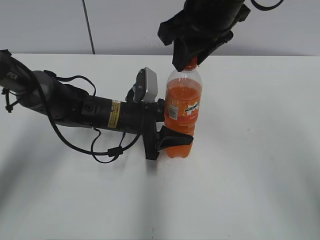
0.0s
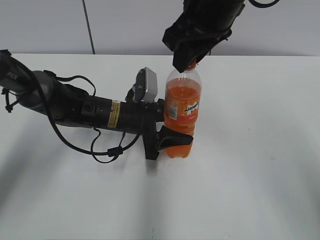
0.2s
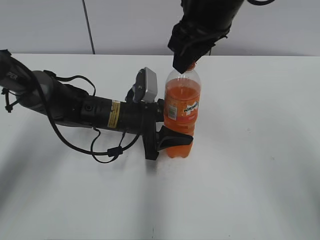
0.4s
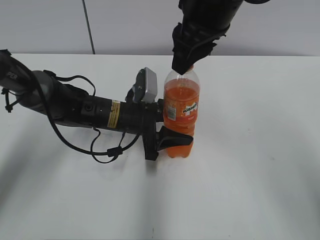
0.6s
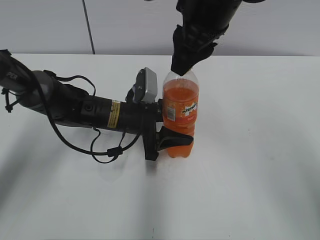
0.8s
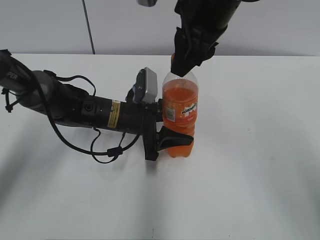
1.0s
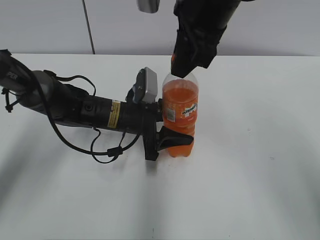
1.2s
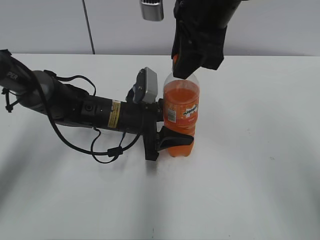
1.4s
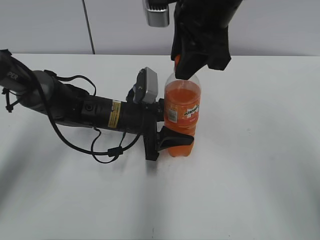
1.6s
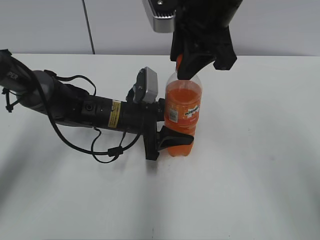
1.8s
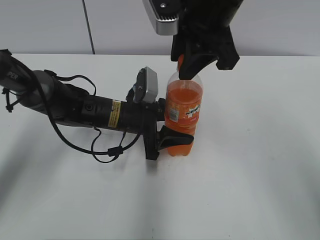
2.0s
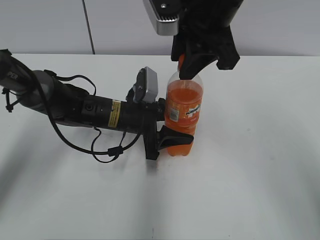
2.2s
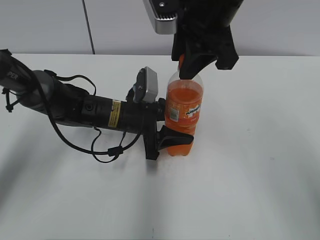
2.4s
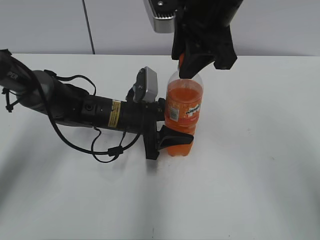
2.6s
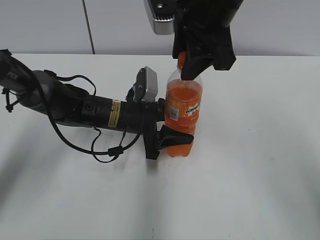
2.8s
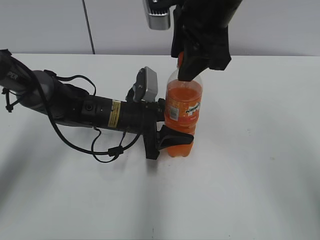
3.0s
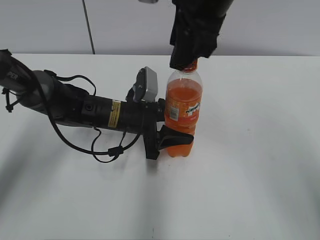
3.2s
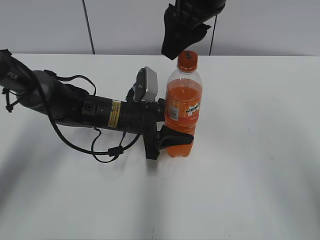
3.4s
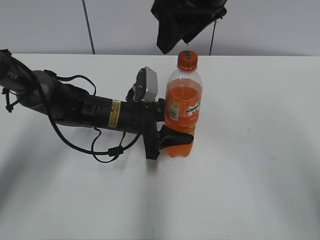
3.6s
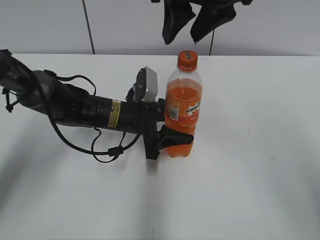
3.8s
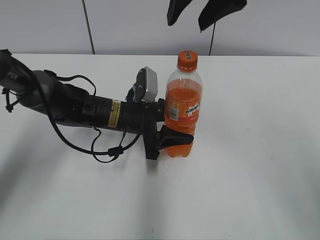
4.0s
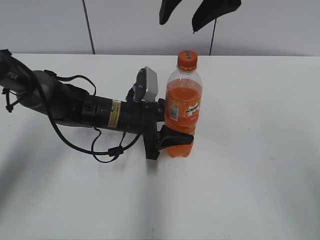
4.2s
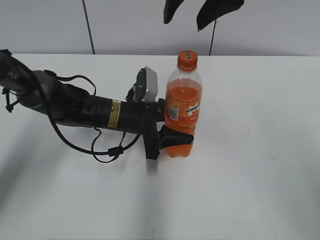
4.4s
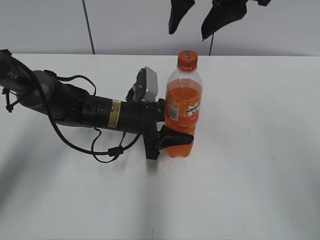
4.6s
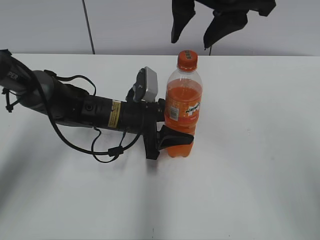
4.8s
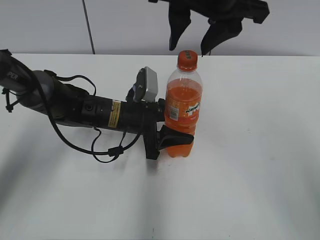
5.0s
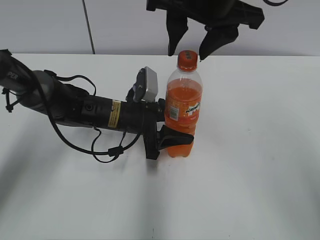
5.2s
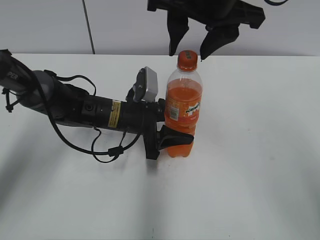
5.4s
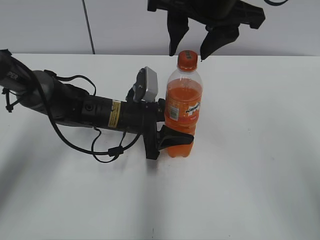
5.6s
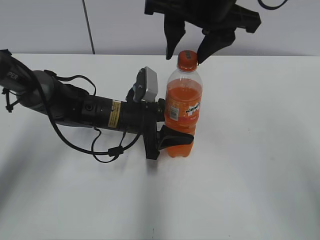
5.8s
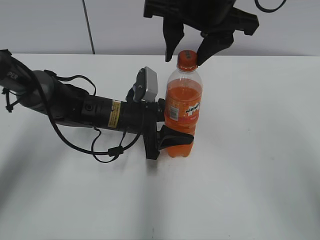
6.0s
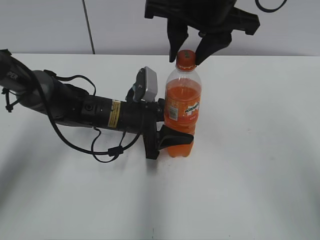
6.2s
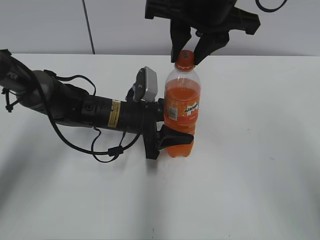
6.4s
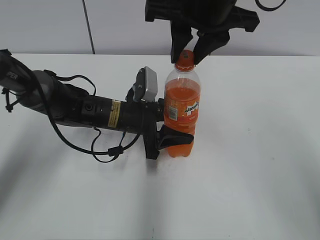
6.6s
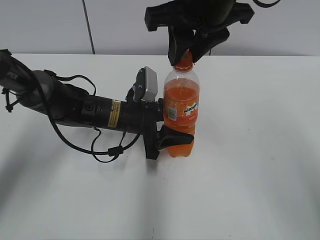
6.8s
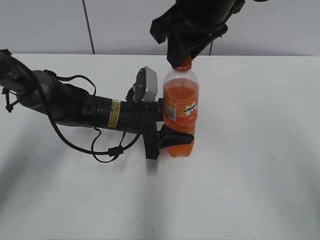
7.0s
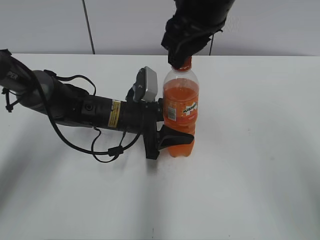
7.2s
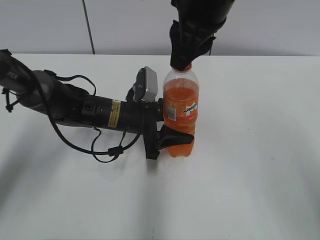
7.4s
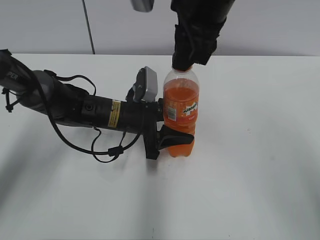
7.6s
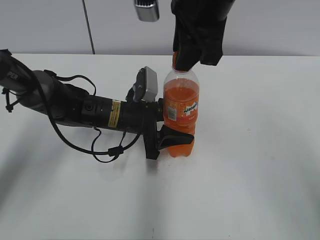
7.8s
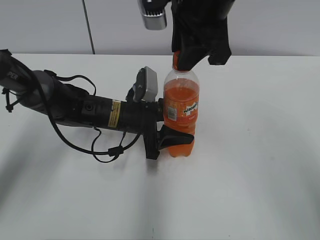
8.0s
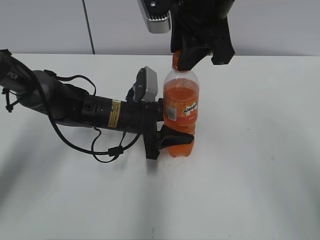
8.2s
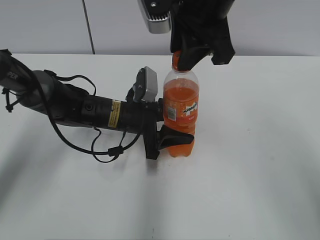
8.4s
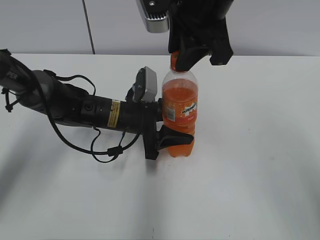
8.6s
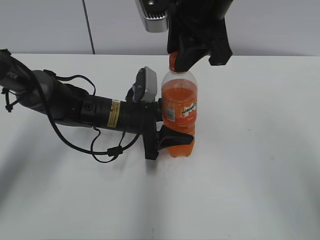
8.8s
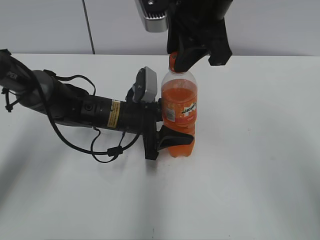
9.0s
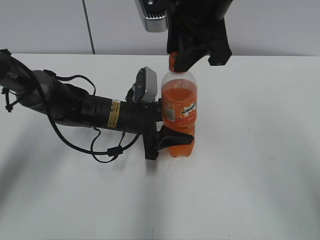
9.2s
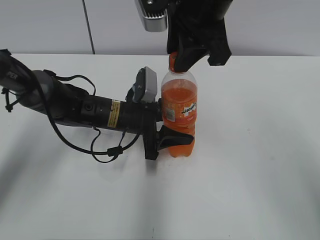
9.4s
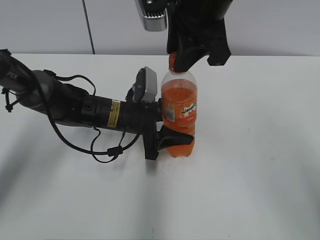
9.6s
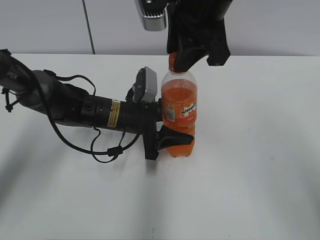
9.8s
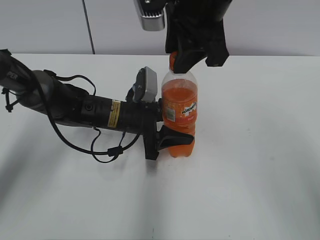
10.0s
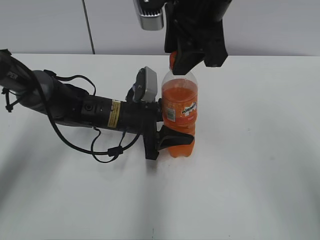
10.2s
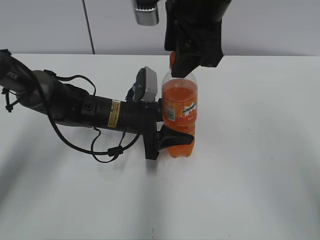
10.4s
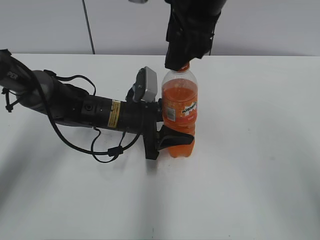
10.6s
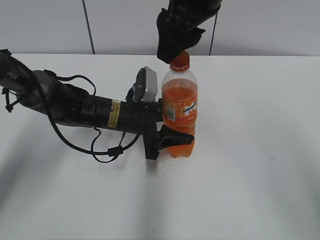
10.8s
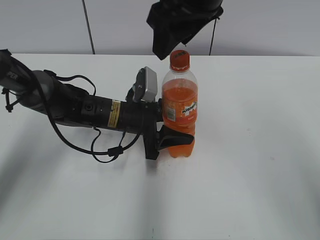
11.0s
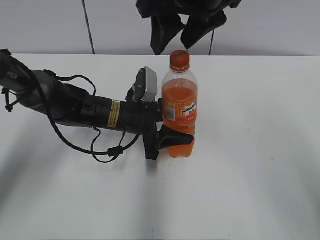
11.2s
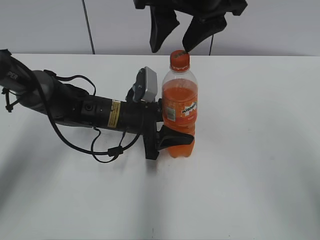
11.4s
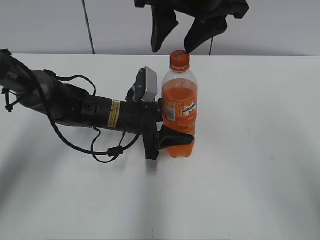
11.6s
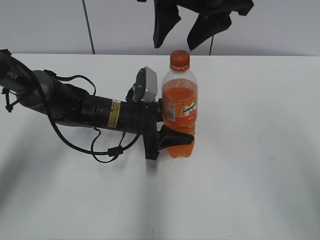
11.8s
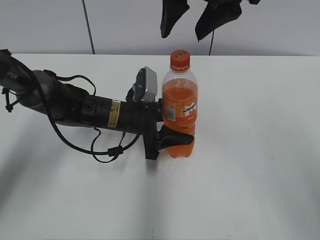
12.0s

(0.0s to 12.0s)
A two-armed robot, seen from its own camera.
1.6s - 3.0s: The right gripper opens.
3.0s - 4.4s: The right gripper heads upward, covering roughly 5 cm.
4.4s - 6.0s: The right gripper heads downward, covering about 5 cm.
6.0s - 7.6s: The right gripper closes its fingers.
9.0s - 10.4s: The right gripper opens its fingers.

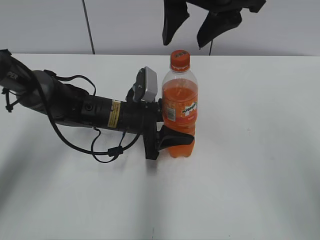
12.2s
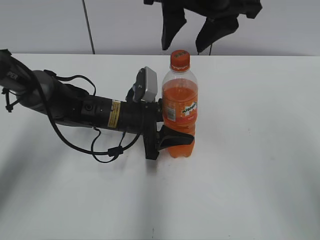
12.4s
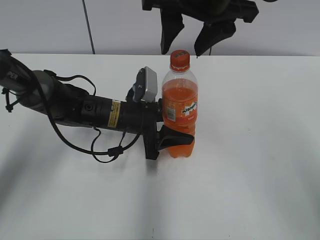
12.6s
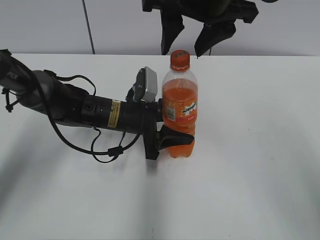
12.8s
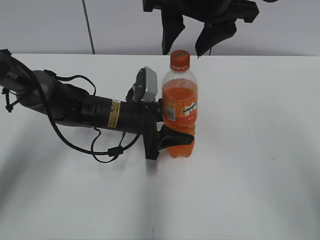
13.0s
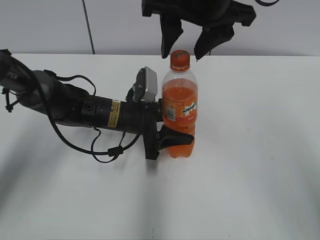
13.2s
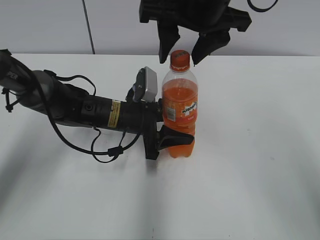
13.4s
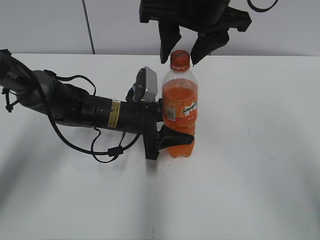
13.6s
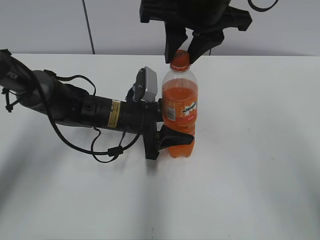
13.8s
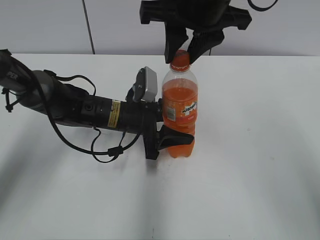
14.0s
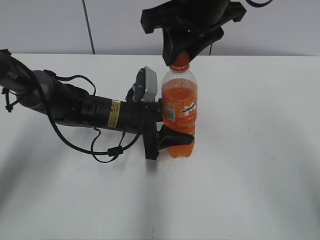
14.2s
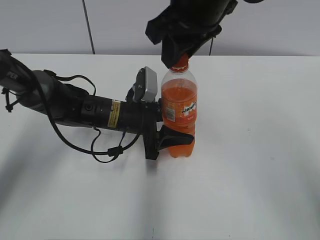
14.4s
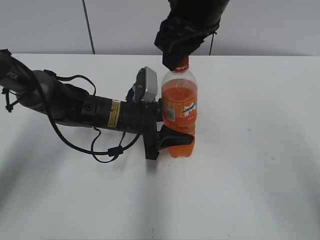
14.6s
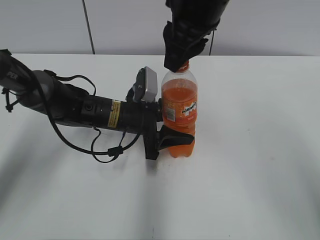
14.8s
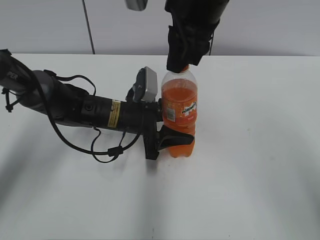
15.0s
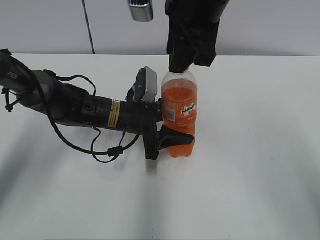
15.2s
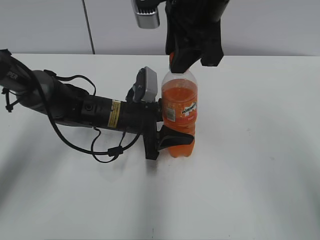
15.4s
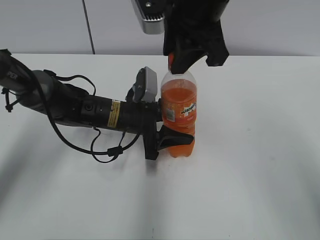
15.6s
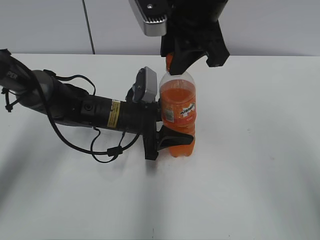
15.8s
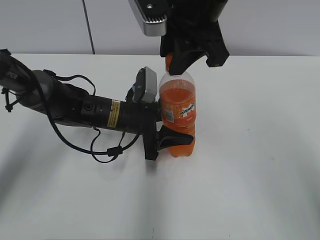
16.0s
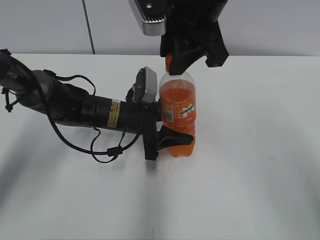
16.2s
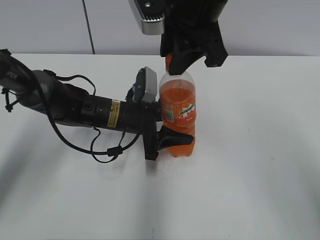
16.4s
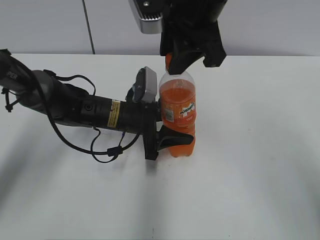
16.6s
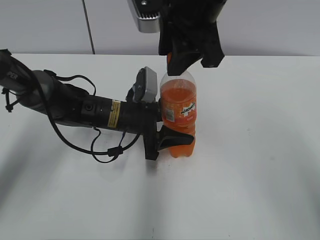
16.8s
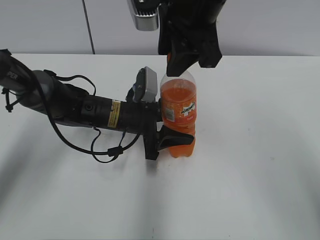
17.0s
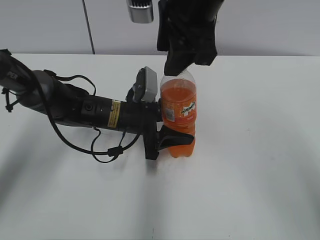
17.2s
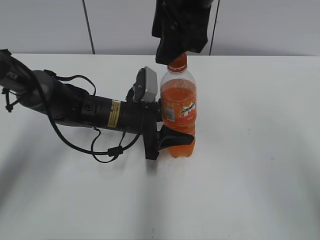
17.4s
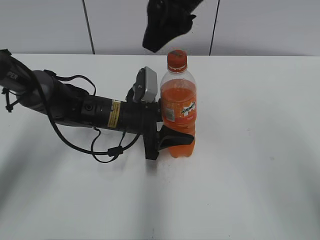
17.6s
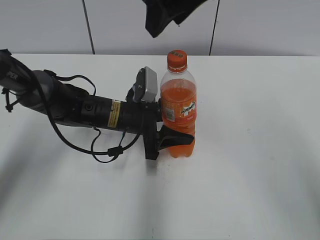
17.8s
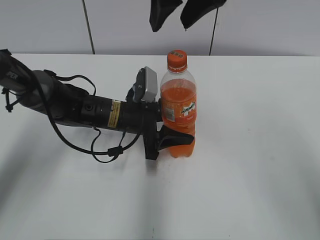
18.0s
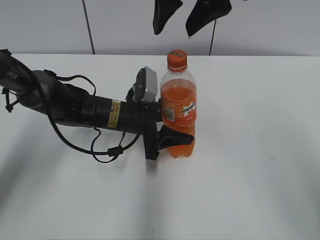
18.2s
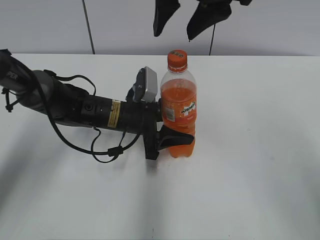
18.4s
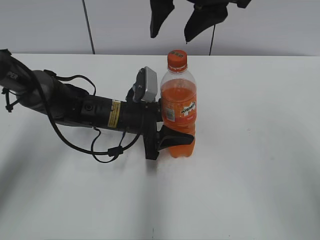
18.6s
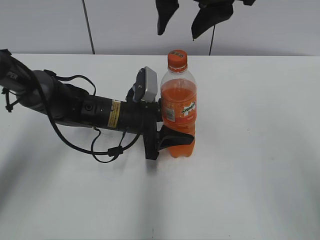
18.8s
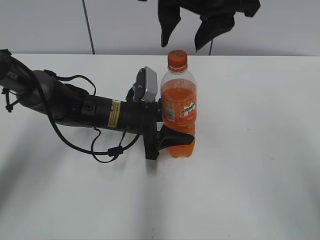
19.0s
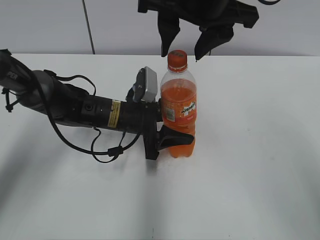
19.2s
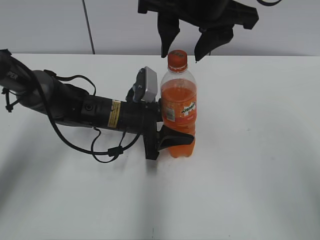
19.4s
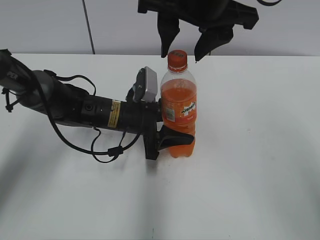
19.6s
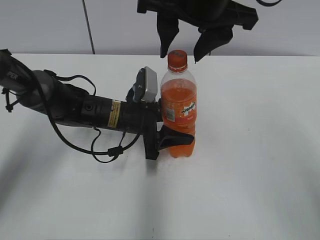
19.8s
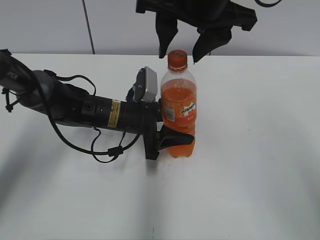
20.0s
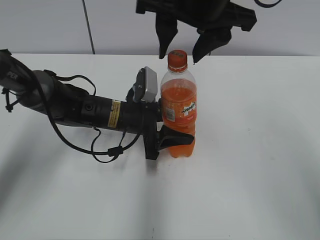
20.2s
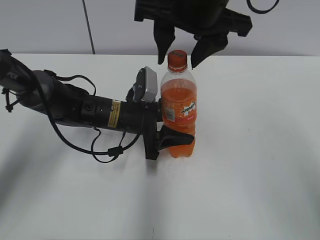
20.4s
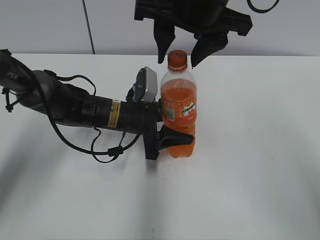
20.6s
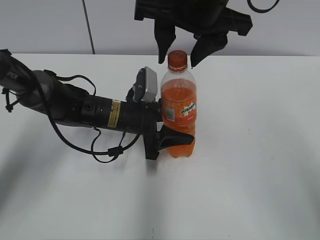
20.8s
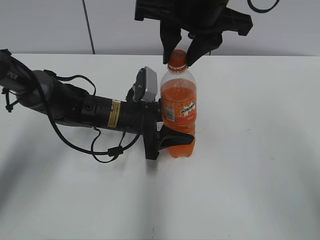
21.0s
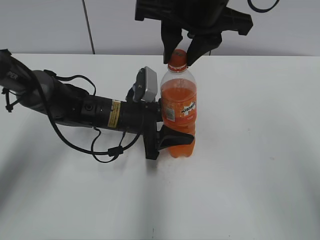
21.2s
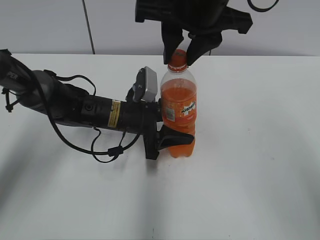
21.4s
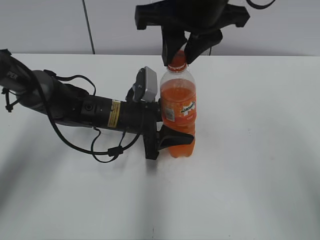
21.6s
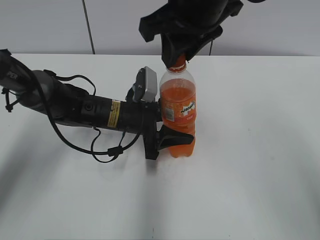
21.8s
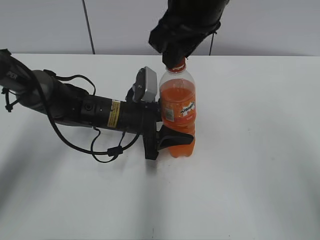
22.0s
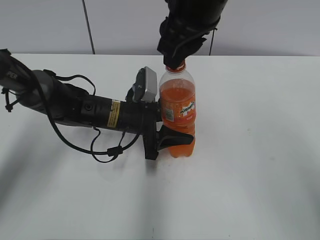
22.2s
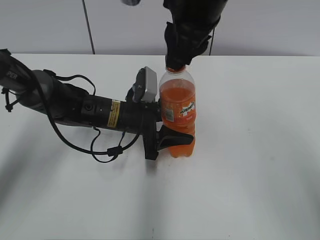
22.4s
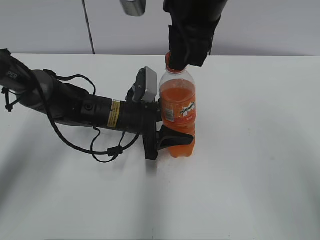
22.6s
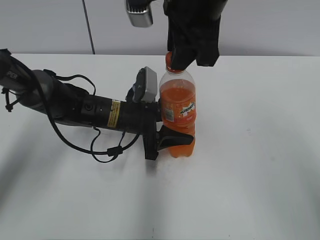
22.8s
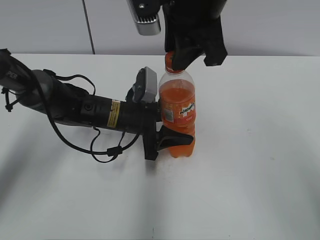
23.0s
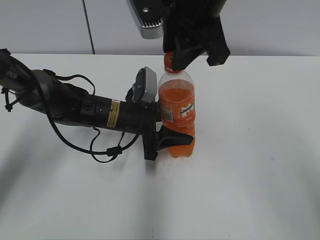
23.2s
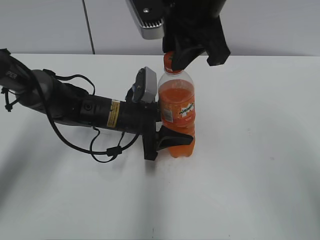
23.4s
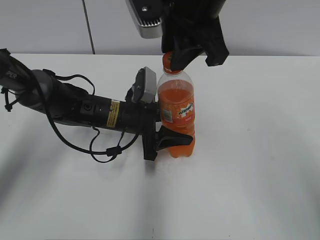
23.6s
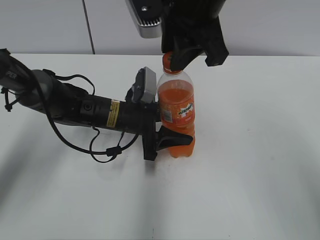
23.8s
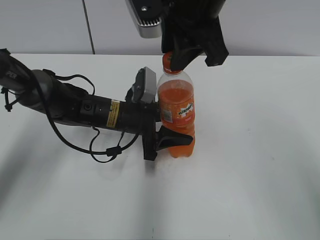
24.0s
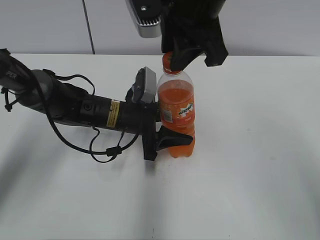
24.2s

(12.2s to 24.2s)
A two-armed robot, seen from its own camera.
12.2s - 13.8s: The right gripper closes.
15.2s - 16.6s: The grippers move only a little.
16.6s - 18.2s: The right gripper opens its fingers.
18.2s - 19.8s: The grippers move only a little.
19.8s - 21.2s: The right gripper closes up.
